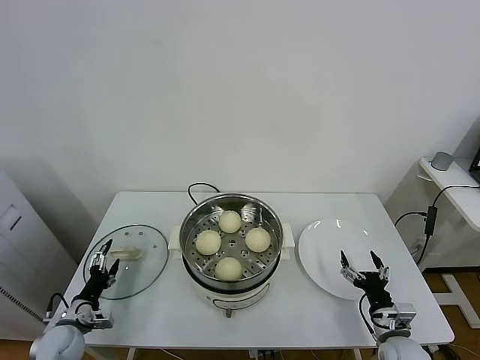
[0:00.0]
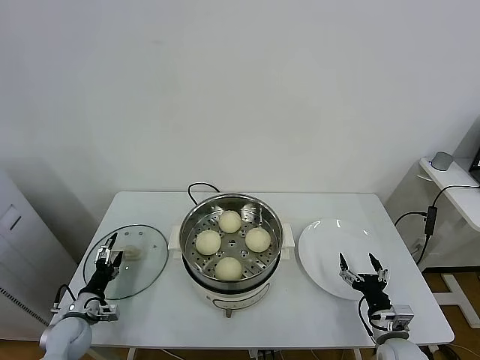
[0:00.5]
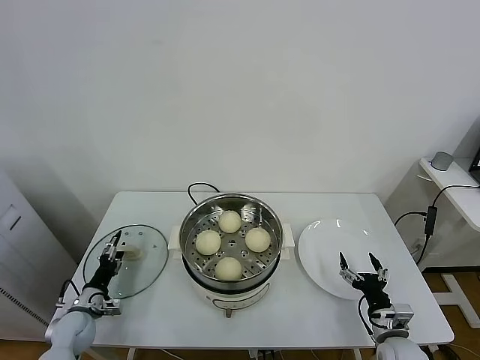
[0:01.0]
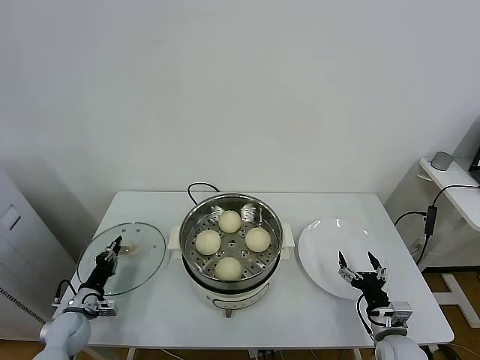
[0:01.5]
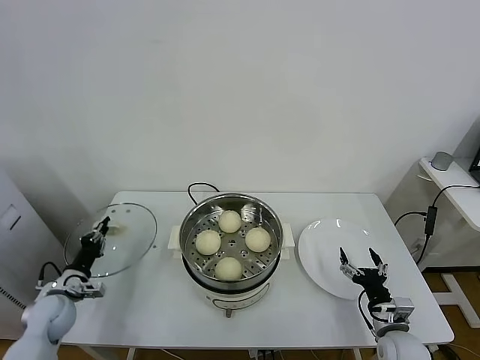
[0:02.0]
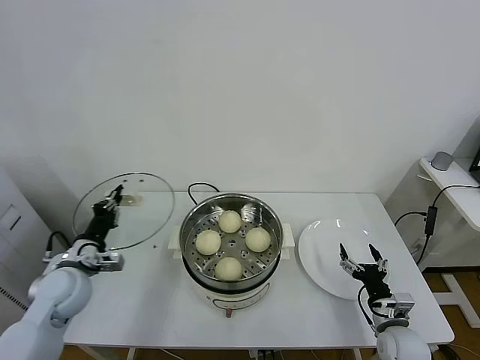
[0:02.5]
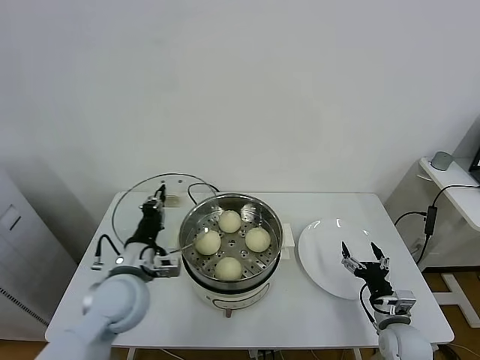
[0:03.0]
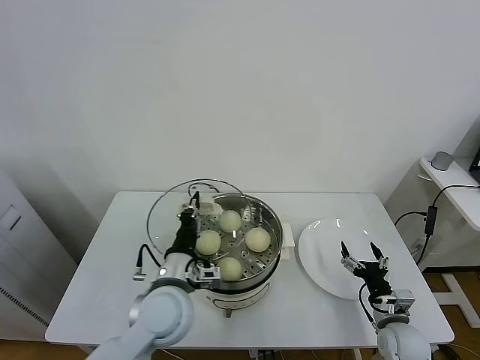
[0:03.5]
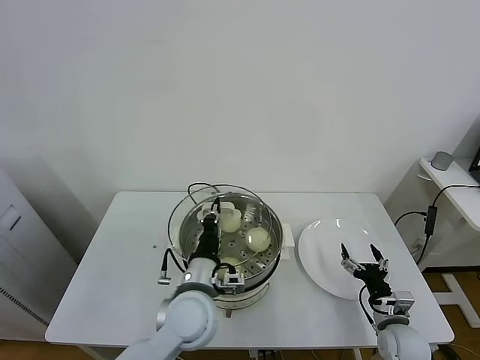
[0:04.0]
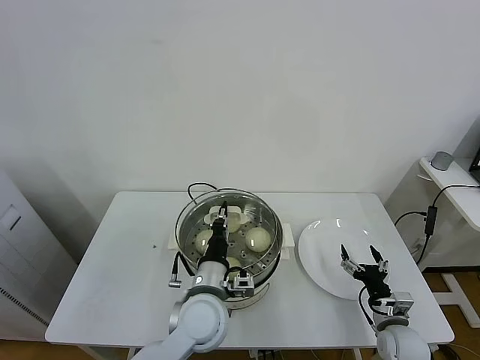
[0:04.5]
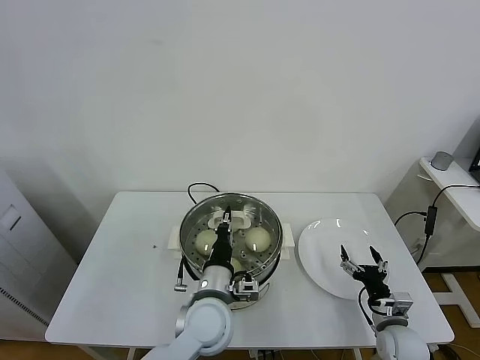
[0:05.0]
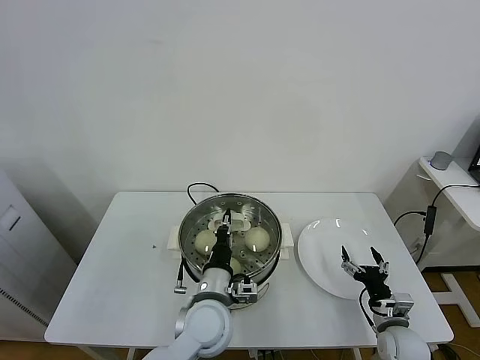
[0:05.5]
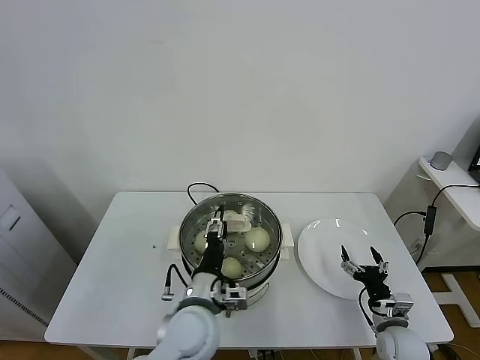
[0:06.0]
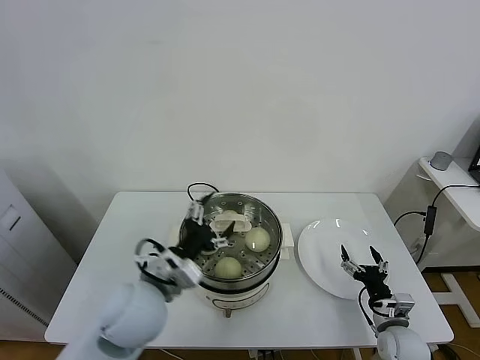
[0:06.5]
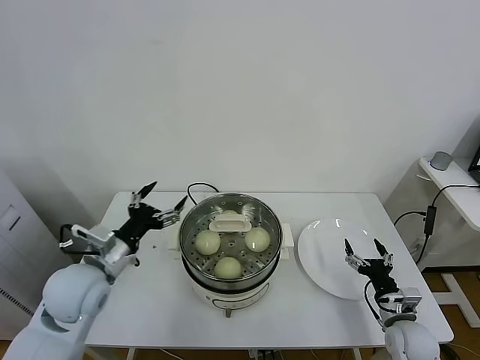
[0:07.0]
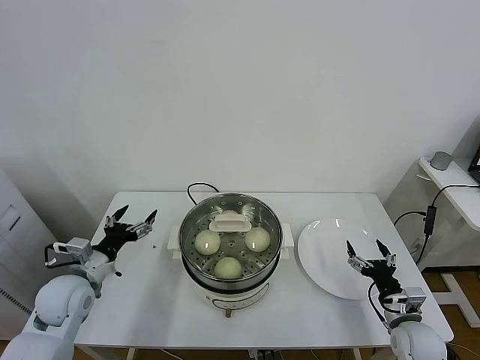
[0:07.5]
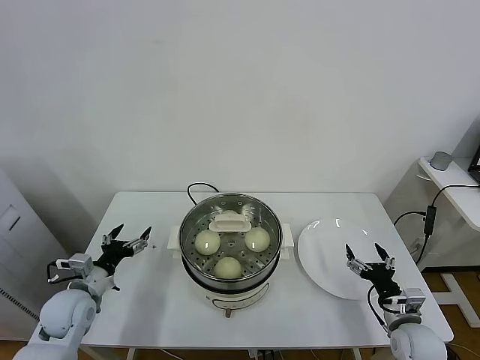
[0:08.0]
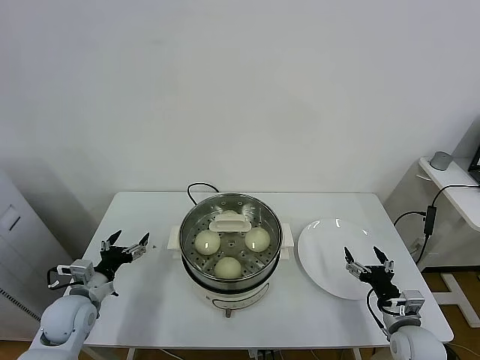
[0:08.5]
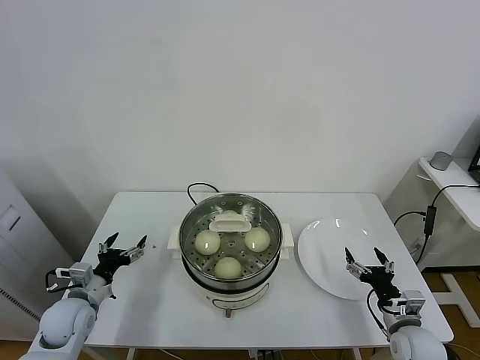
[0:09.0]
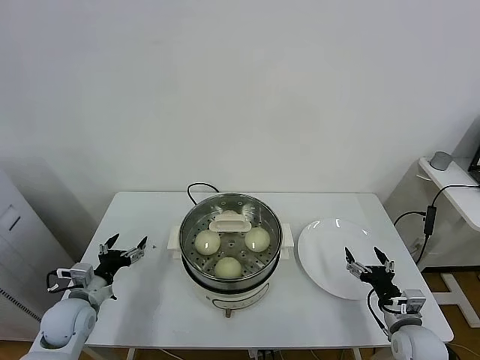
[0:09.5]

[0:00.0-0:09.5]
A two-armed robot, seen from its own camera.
Task of the whole recording: take steamed baozi put them in steamer.
Step, 0:02.0 to 0:05.5: Place the pot lid on the steamer with left gripper.
0:00.0 to 0:02.0: The left gripper shifts about 5 cm forward, and closes its fingers.
0:02.0 to 0:04.0: The left gripper shifts approximately 35 cm to the right.
0:04.0 to 0:05.5: The grippers move only a little.
0:05.5 to 0:07.5: The left gripper goes roughly 30 cm to the left, and opens up.
0:07.5 to 0:09.5: The left gripper is displaced downward by about 10 cm.

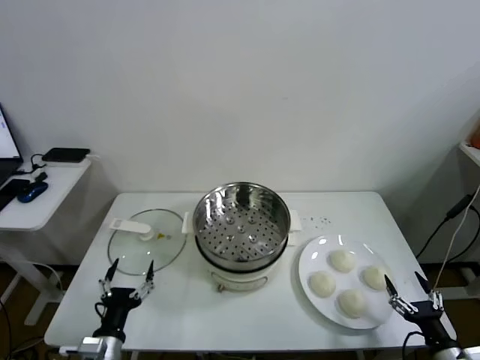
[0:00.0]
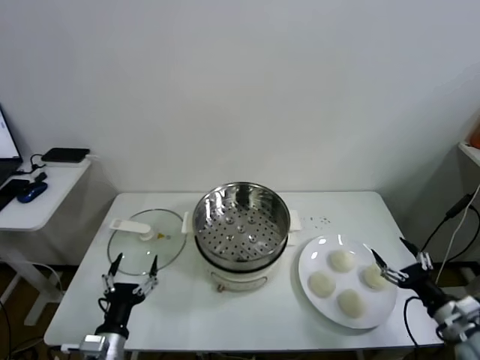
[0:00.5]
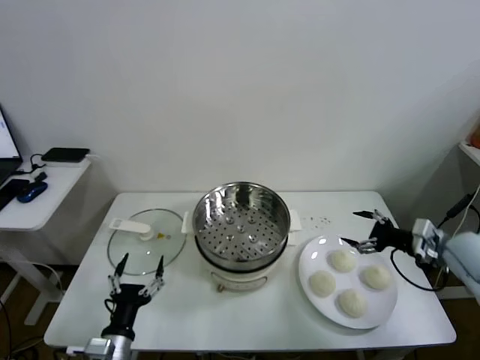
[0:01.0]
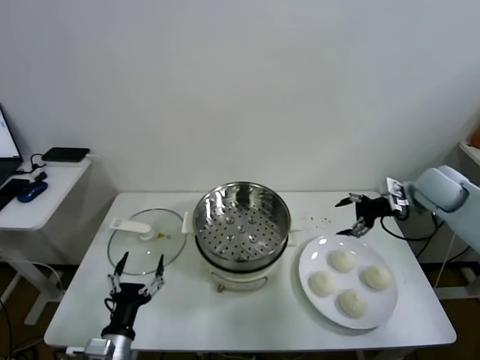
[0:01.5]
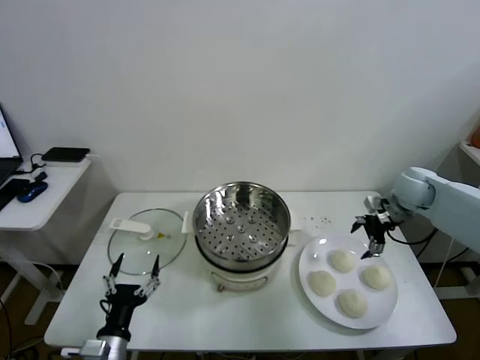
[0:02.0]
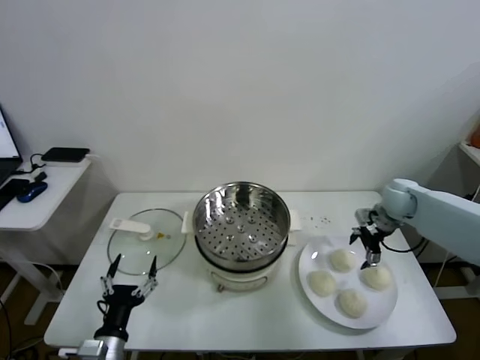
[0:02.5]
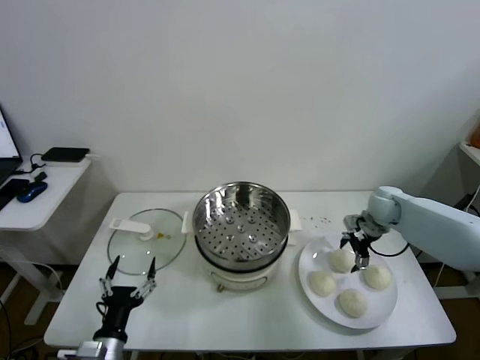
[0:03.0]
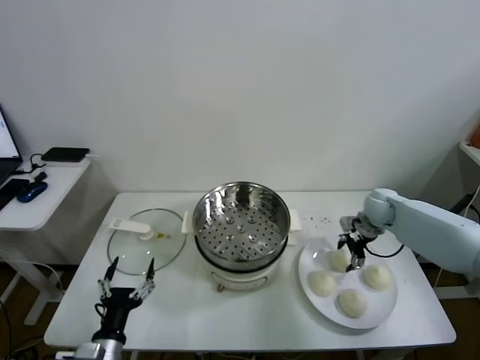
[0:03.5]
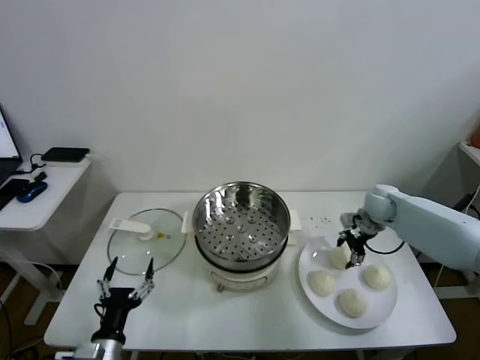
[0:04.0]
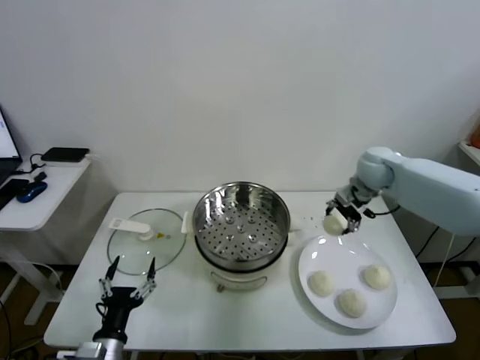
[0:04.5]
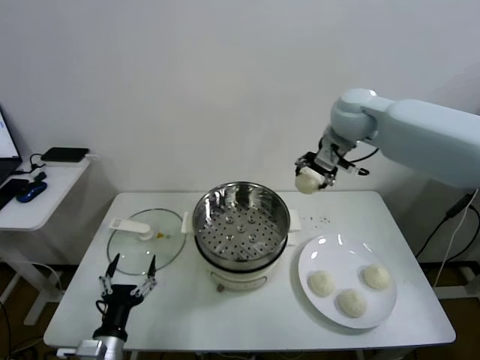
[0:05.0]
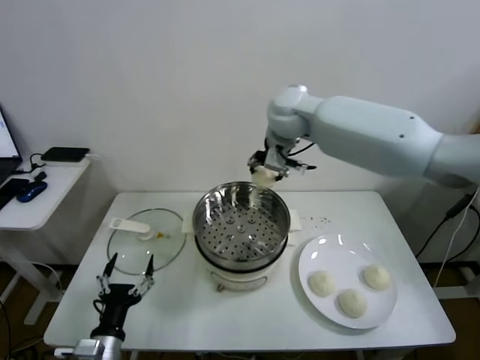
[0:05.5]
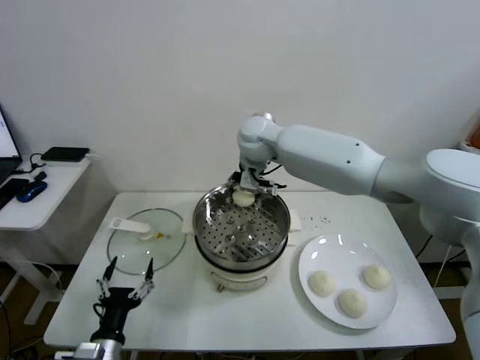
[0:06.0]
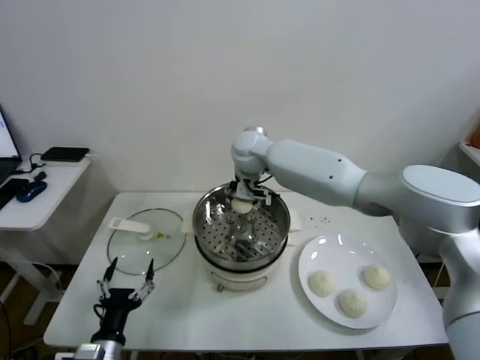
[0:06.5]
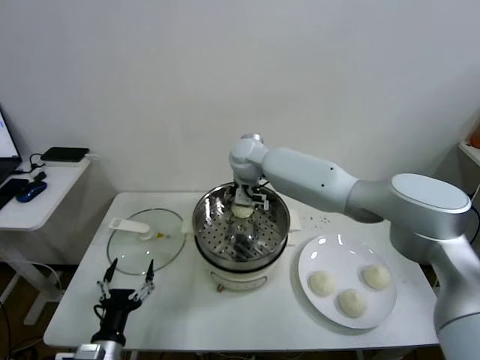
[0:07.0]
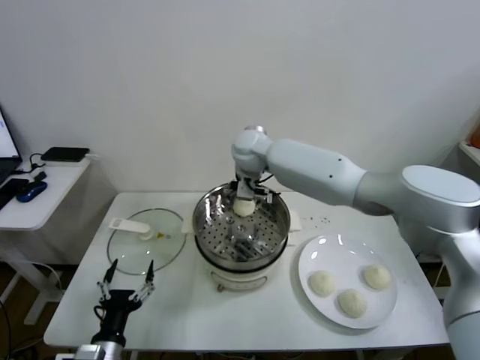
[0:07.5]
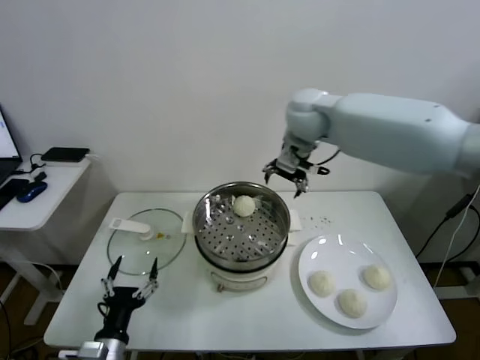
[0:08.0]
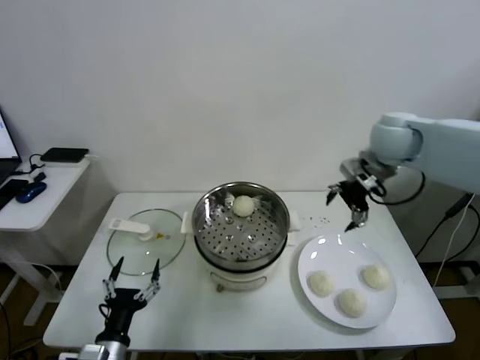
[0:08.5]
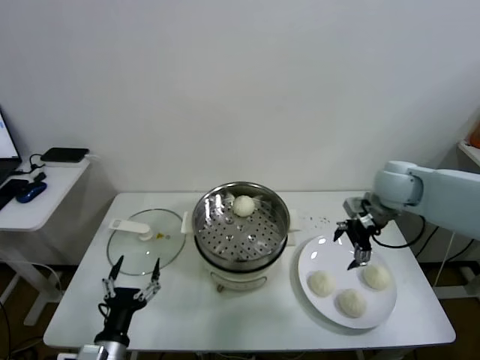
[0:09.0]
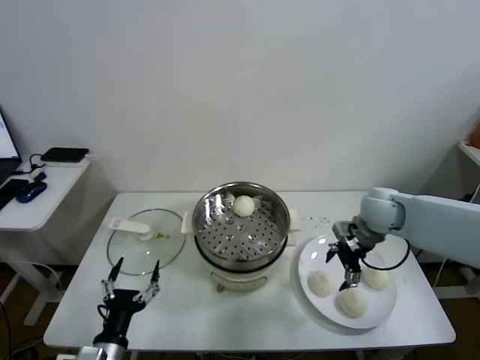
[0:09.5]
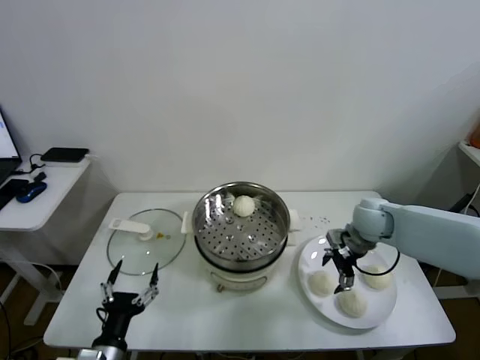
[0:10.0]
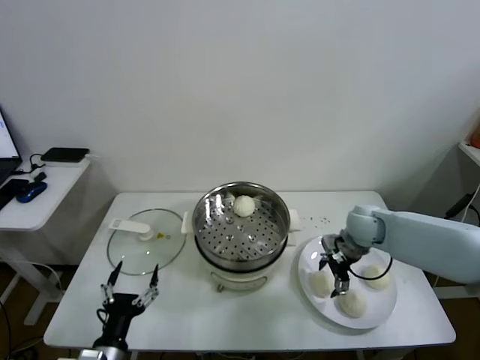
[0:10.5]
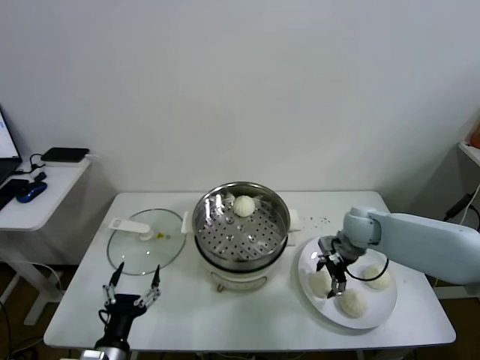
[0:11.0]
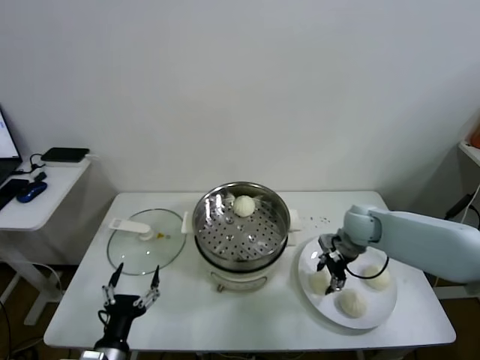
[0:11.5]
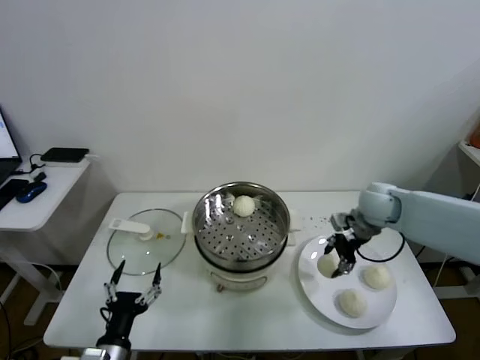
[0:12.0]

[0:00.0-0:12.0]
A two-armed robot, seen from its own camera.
Task of the whole recording: take steamed baozi put them in steamer.
Step, 0:00.0 to 0:03.5: Grasp the baozi in the plate with right gripper.
Step, 0:04.0 to 0:07.0: Place the baozi on the steamer with right gripper.
Step, 0:07.5 to 0:11.0: Grasp the baozi in the plate with right gripper.
0:02.0 to 0:04.0: The right gripper moves downward, roughly 5 cm, and closes.
0:04.0 to 0:06.0: The right gripper goes some 40 cm to the left and upward.
0:06.0 to 0:08.0: The right gripper moves to the right and upward, roughly 15 cm, and opens up.
0:08.0 to 0:10.0: The right gripper travels downward and to the right by roughly 30 cm.
0:10.0 to 0:12.0: The right gripper goes some 5 cm upward, and closes its fingers.

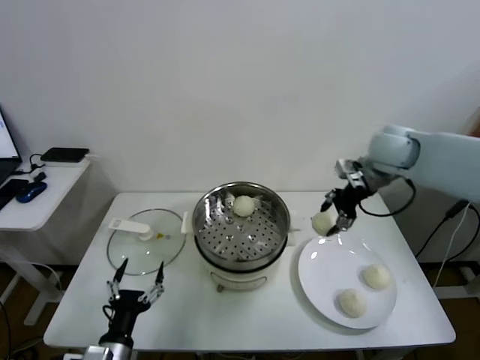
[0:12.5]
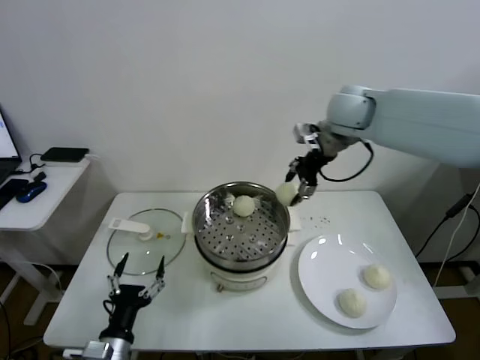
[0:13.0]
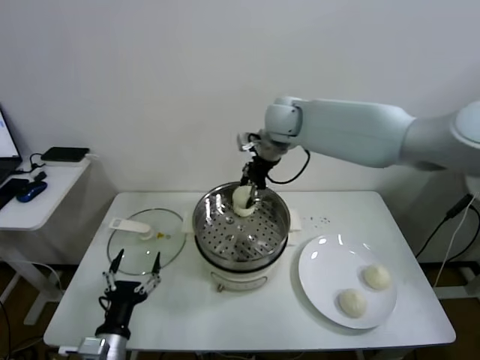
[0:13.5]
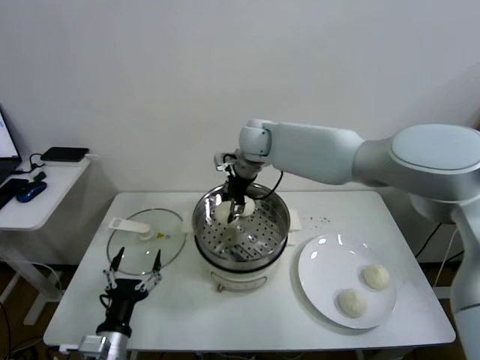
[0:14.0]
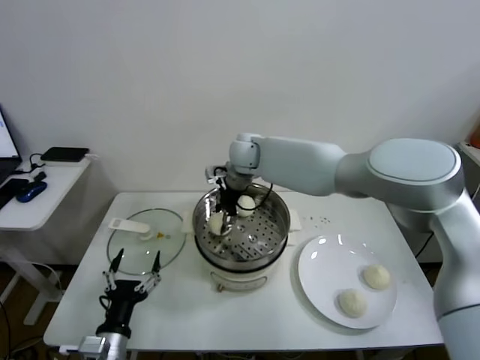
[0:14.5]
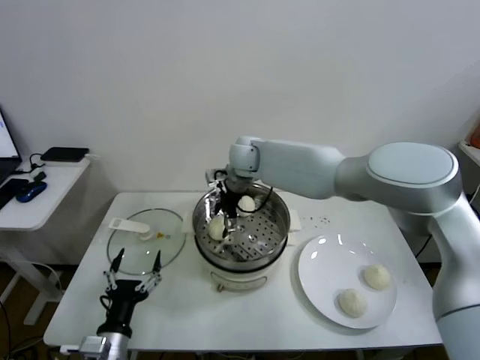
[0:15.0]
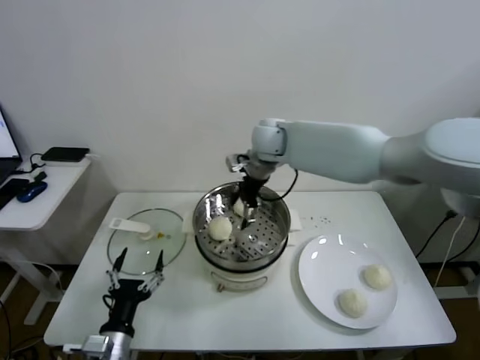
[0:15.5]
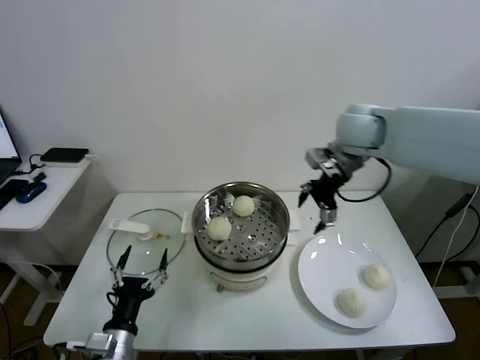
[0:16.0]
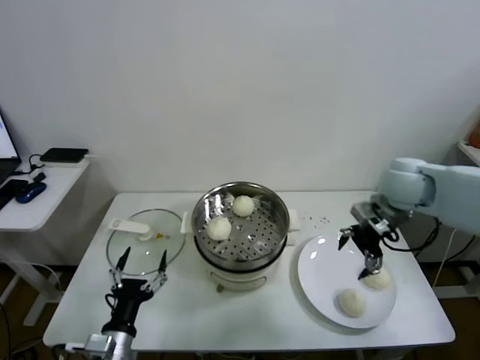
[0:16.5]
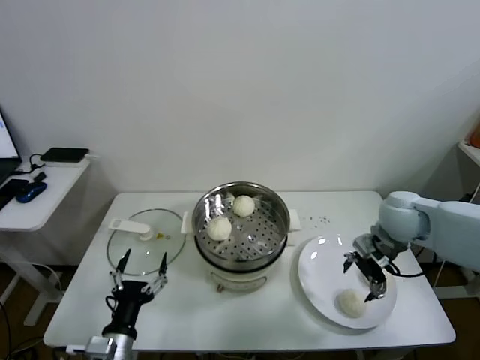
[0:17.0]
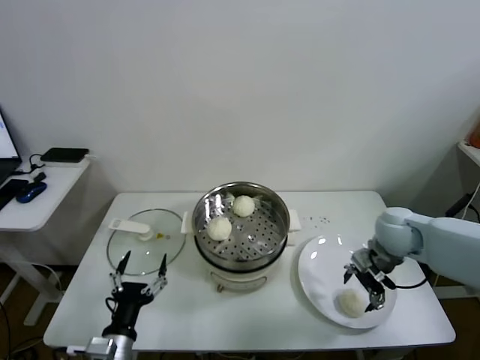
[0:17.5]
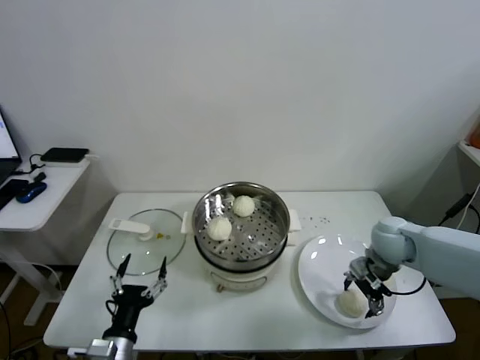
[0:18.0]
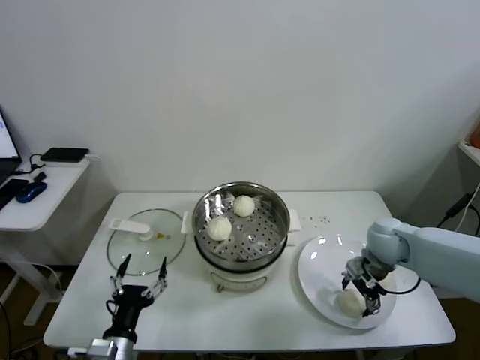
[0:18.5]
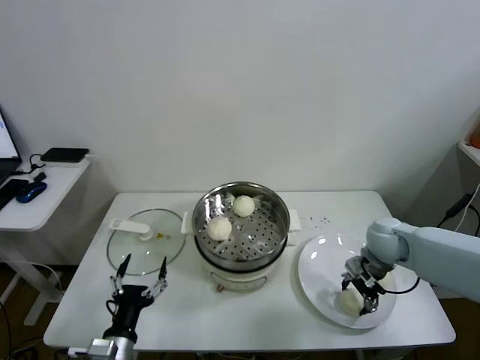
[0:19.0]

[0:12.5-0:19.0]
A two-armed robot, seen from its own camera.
Task of the whole recording: take steamed baozi put them in steamer.
Step, 0:12.5 to 0:14.5: Place the baozi on the steamer with right gripper.
0:12.5 to 0:14.5: The right gripper goes approximately 30 cm to the left.
0:14.5 to 0:17.0: The right gripper is displaced to the right and backward by some 35 cm, and opens.
0:17.0 to 0:19.0: The right gripper moves downward, approximately 10 cm, and closes up.
